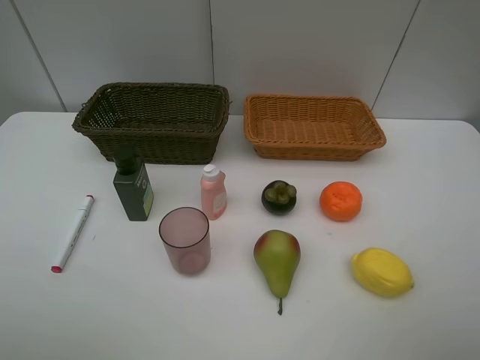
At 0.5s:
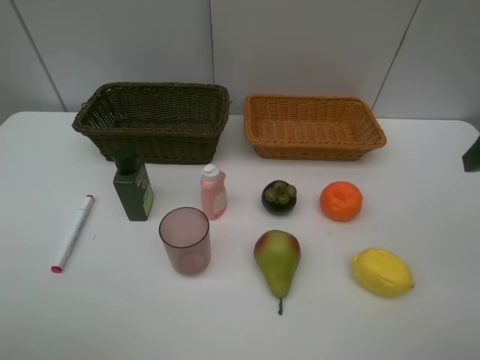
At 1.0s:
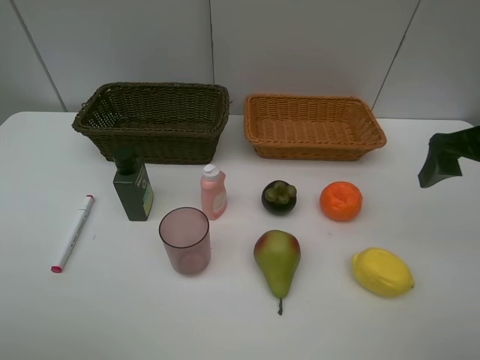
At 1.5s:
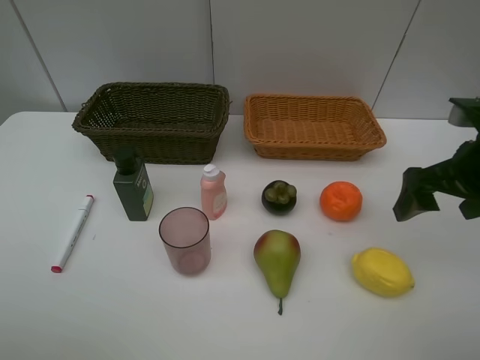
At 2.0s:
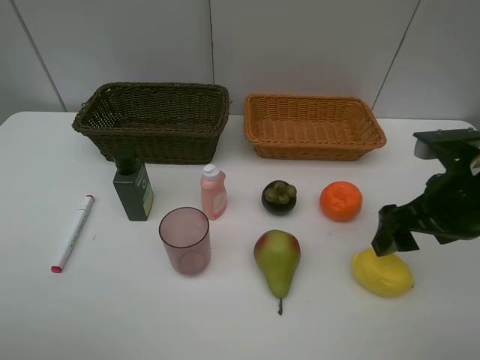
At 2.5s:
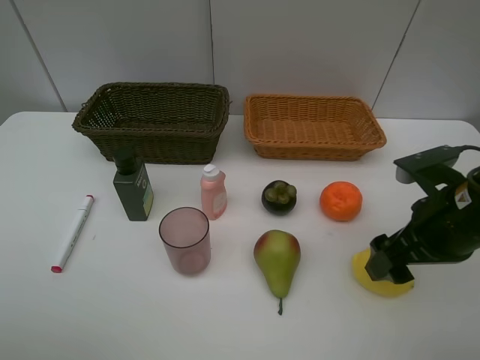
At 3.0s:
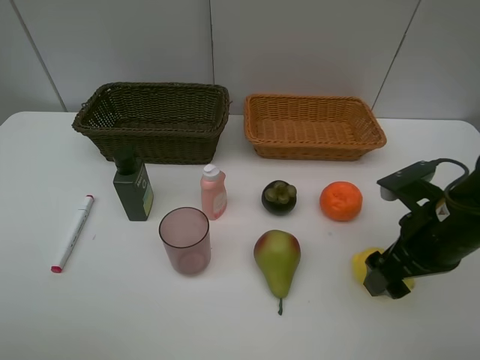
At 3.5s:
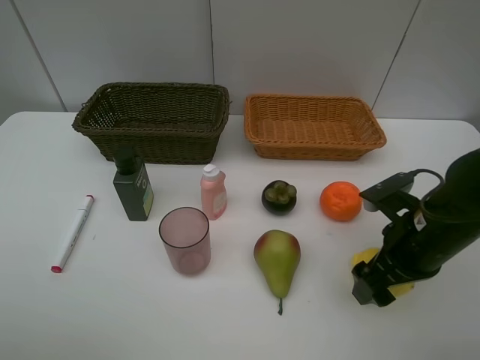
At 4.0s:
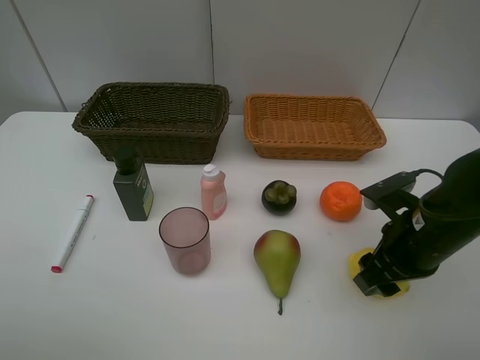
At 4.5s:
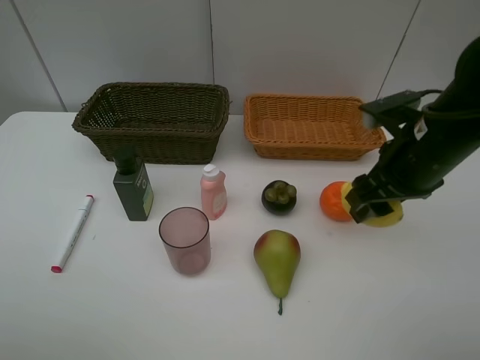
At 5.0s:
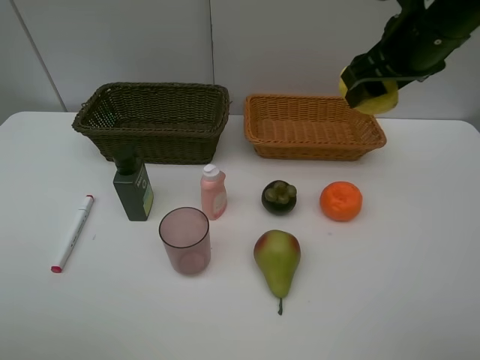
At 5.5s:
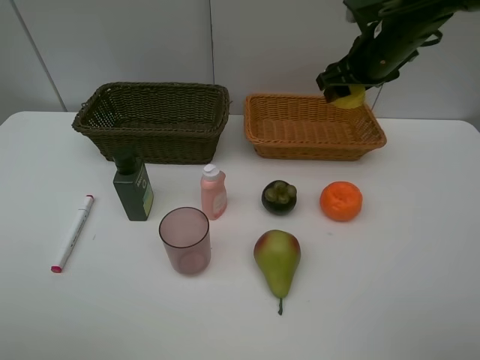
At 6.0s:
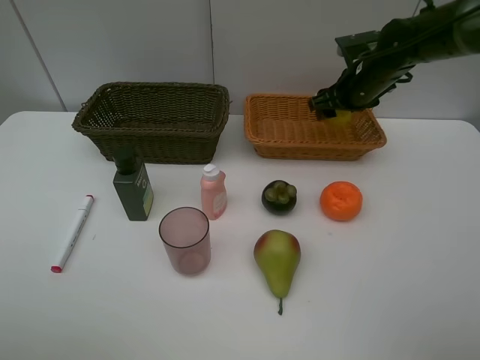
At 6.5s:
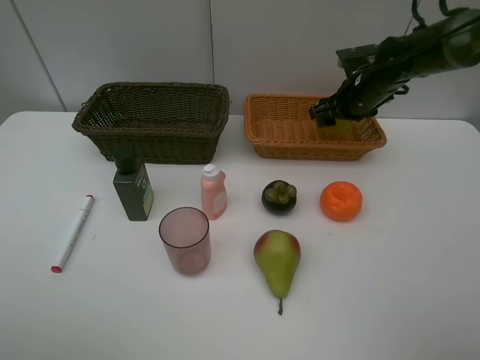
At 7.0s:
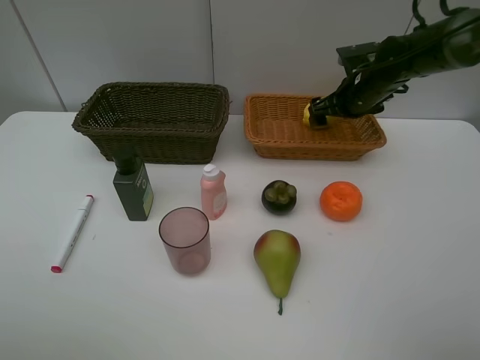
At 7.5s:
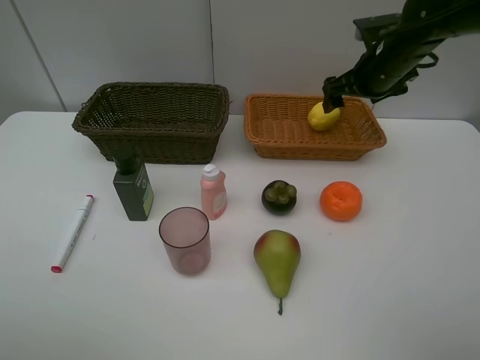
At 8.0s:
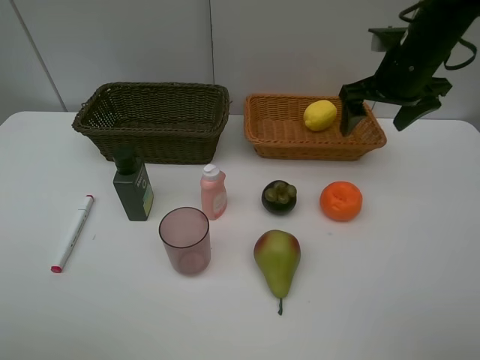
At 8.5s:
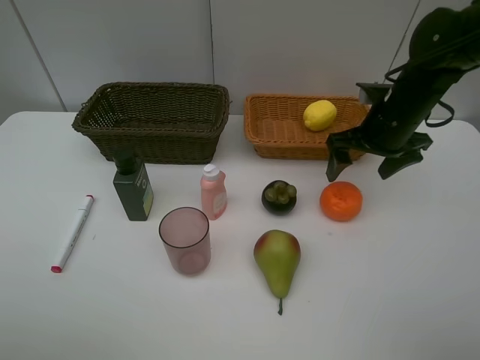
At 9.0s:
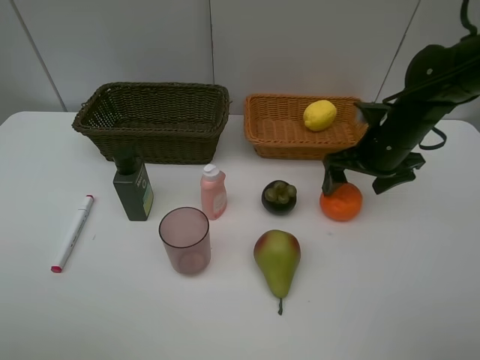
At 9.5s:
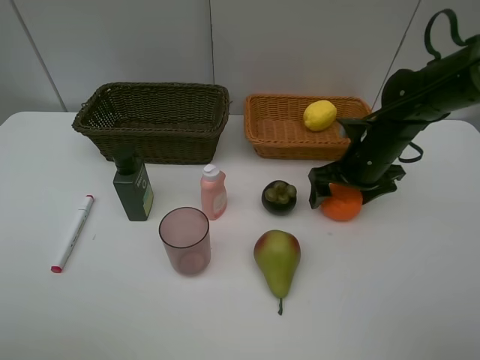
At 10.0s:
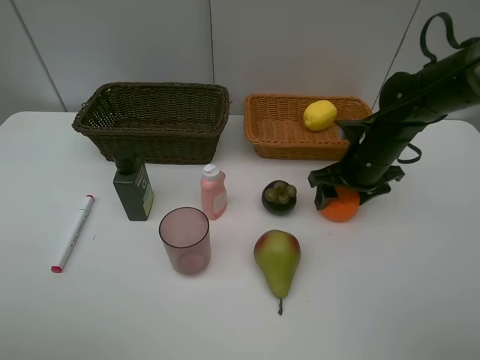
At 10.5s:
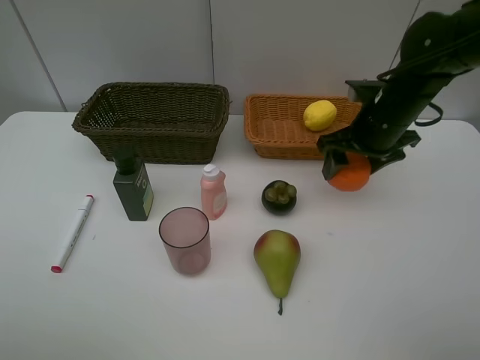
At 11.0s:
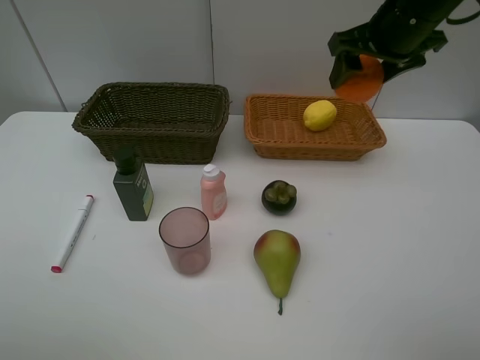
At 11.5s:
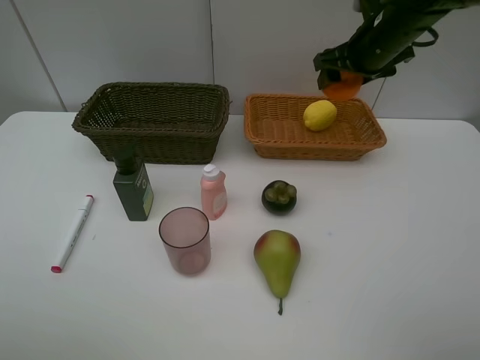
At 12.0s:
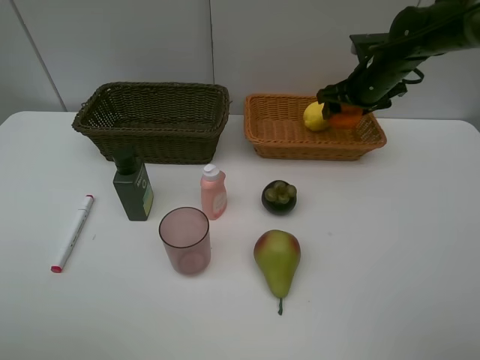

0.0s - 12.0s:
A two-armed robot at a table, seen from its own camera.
Task of the whole recording: Place multiple objects separately in different baskets.
Step, 0.0s - 4.0s: Pick up the lemon with right gripper.
Step, 4.5s - 7.0s: Place the lemon in the light basket with right gripper.
Step, 7.5s - 10.0s: Pick up the orange with right gripper.
0.0s - 2.0s: The right gripper is displaced forward and downward by about 20 cm.
2.0s - 4.0s: The right gripper moves downward, about 5 cm, and closes up.
4.0s - 6.0s: The right gripper moves forward, about 25 cm.
6.0s - 8.0s: The right gripper goes about 10 cm backward and upward, and opens its fingers.
8.0s - 10.0s: The right gripper goes some 15 cm downward, and closes up.
10.0s - 12.0s: The right gripper heads forward and upward, covering about 15 cm.

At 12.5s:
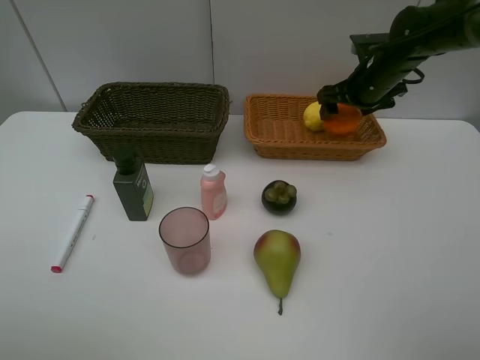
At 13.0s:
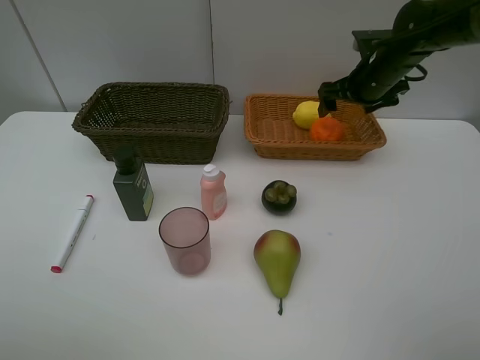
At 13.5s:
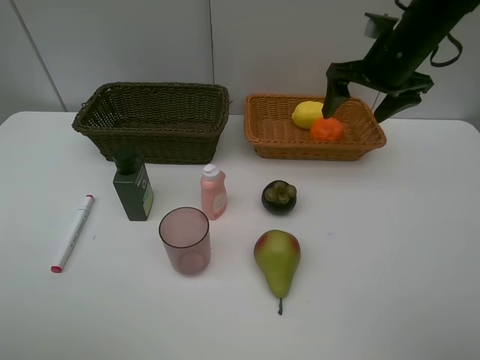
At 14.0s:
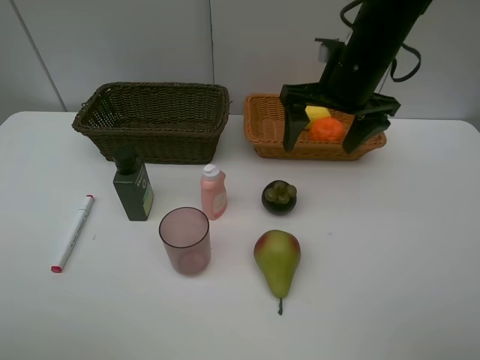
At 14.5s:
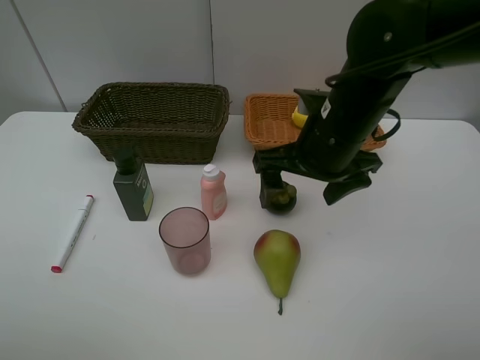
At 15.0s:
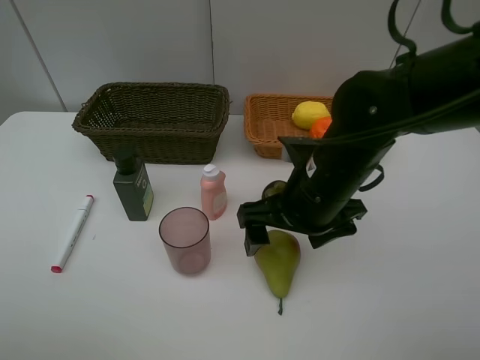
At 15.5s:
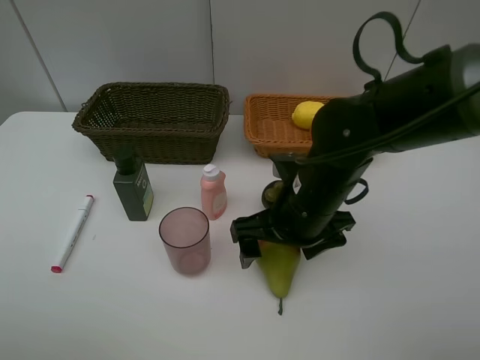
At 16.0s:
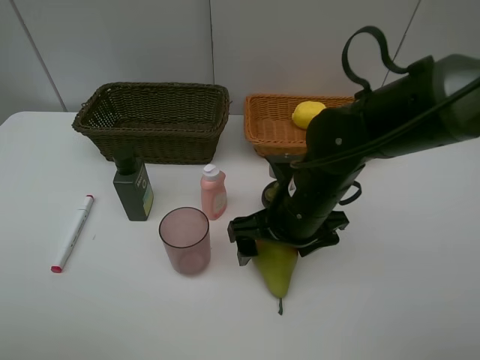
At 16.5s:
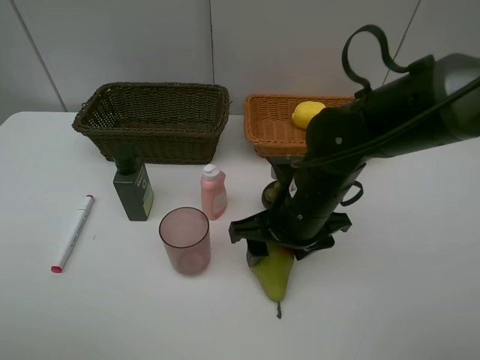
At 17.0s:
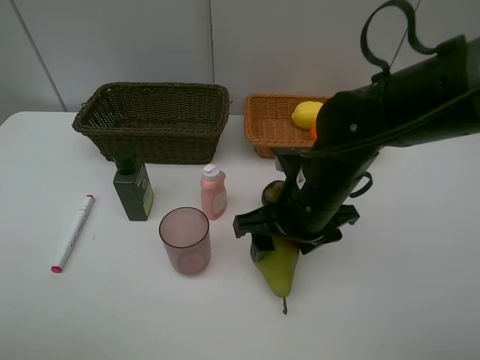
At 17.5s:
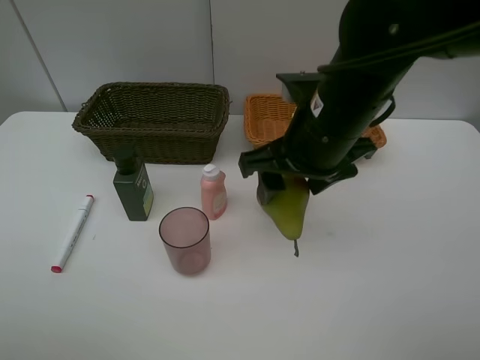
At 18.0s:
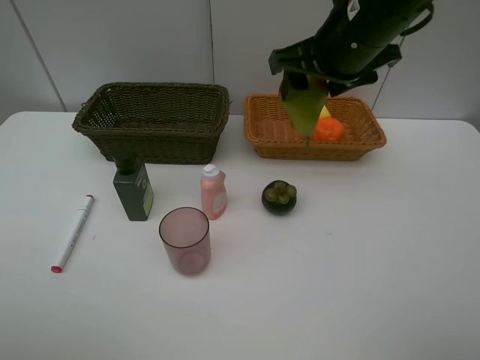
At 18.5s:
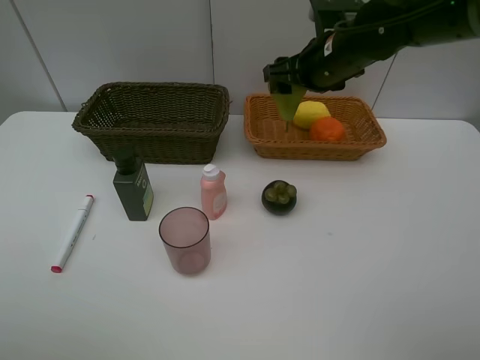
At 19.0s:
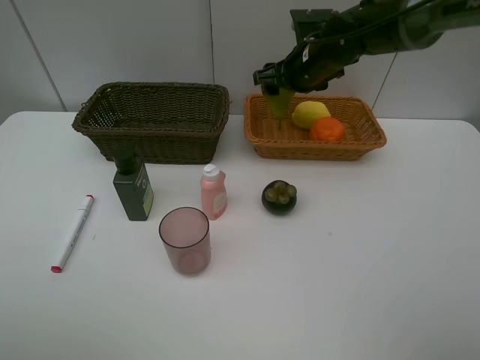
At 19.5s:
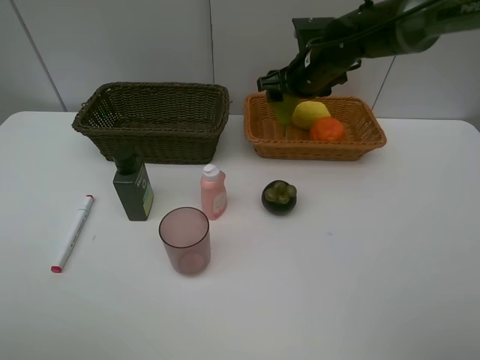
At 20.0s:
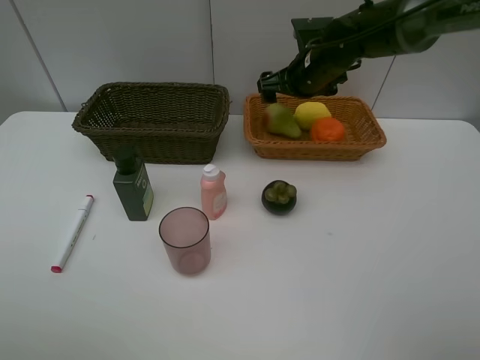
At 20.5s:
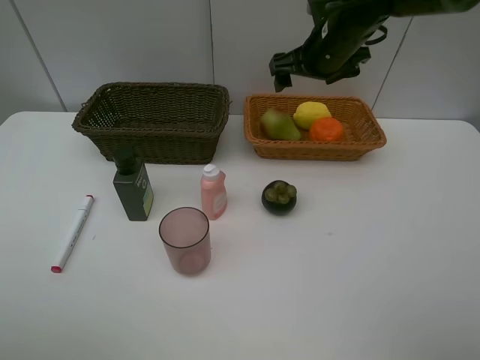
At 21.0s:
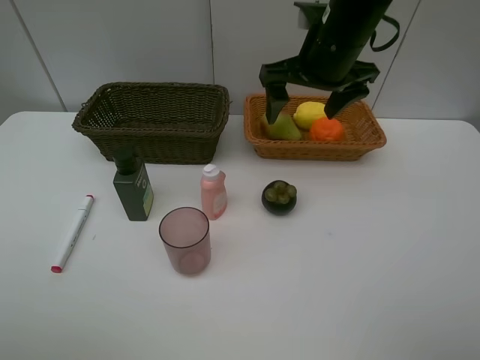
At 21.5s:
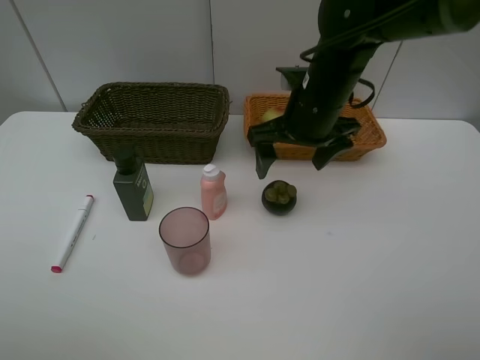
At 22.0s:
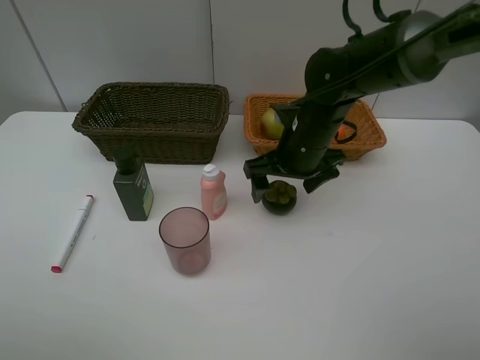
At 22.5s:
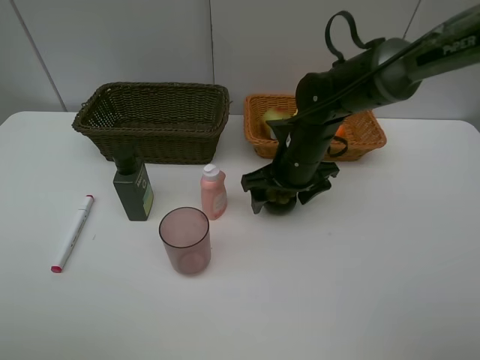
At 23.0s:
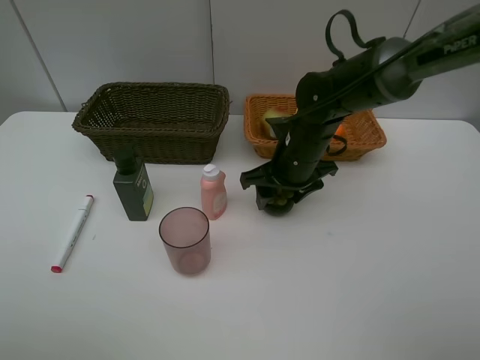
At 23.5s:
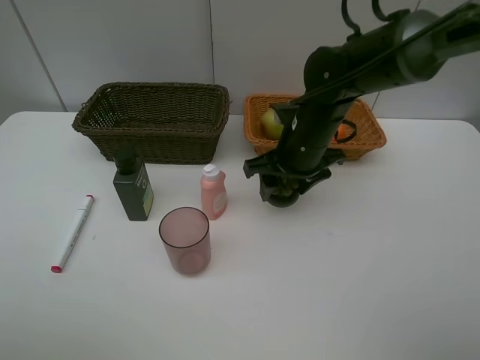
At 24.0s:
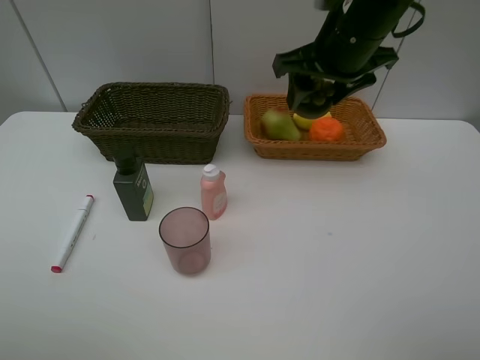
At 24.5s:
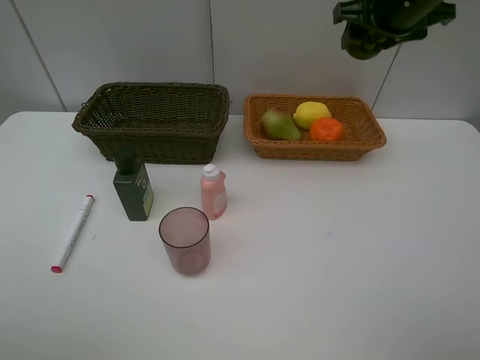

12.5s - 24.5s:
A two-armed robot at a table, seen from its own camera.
Task of the whole recording: Place multiple objects separately in different baskets.
Step, 13.5s - 17.0s: Pick up the pear with right gripper.
Step, 17.5s - 20.0s: Place the pear in the light basket with right gripper.
Step, 20.5s - 23.5s: Pick up the mangosteen with right gripper.
12.5s - 14.5s: The right gripper shifts approximately 20 cm backward and to the left.
14.5s - 16.5s: The right gripper goes roughly 5 cm downward, and closes up.
16.5s - 18.5s: The right gripper shifts about 20 cm forward and upward.
18.5s - 20.5s: The right gripper opens up.
20.5s - 22.5s: The right gripper shifts roughly 15 cm downward and backward.
22.5s - 24.5s: The right gripper heads upward and to the right, covering roughly 25 cm, and closes up.

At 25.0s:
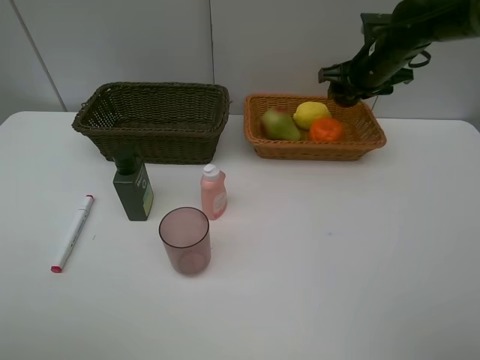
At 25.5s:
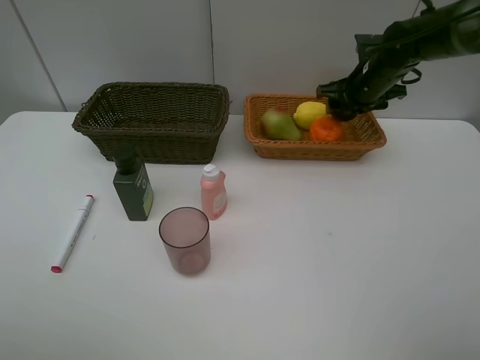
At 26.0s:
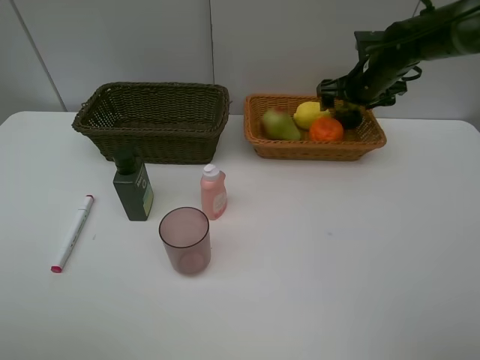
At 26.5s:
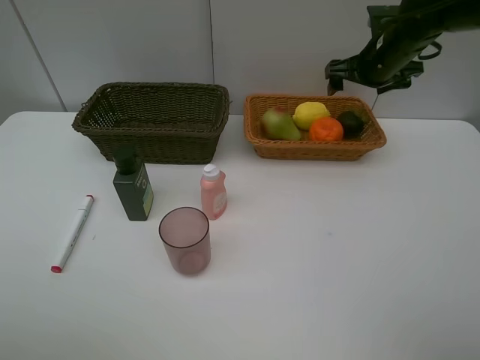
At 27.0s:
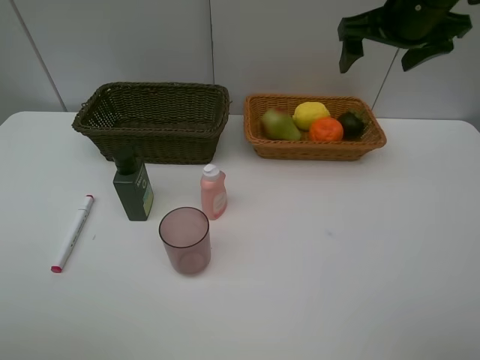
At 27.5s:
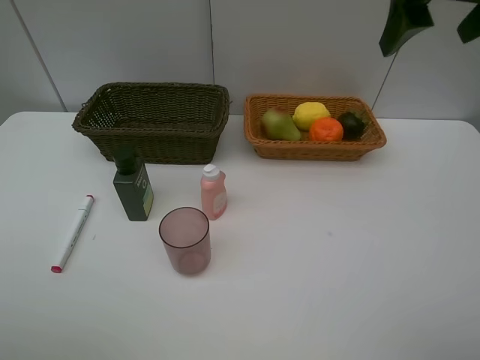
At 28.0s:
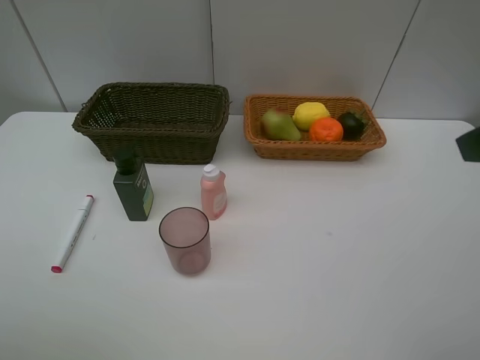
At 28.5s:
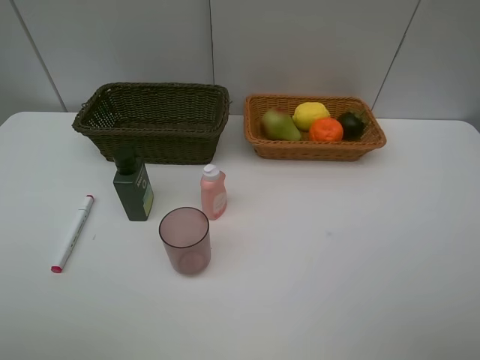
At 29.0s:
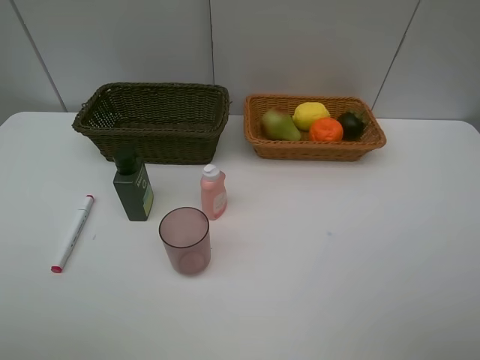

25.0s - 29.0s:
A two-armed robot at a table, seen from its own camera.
Task of the whole recording: Place multiple objects separately in different baskets.
Step, 25.0s - 26.5s: Place the mangosteen in the light basket with right gripper.
25.0s - 27.0s: The right gripper is displaced upward and backward by about 15 cm, and opens up.
27.0s - 29.0s: The right gripper goes about 35 cm backward.
